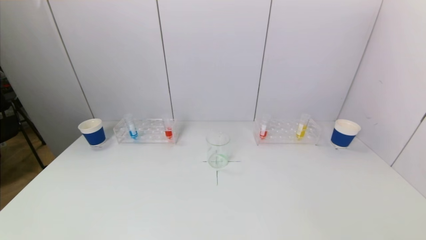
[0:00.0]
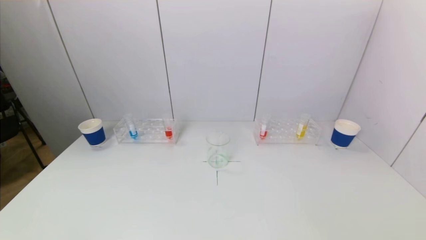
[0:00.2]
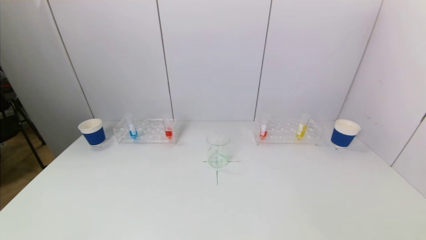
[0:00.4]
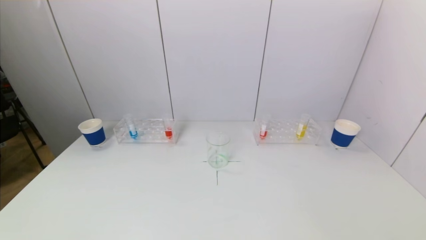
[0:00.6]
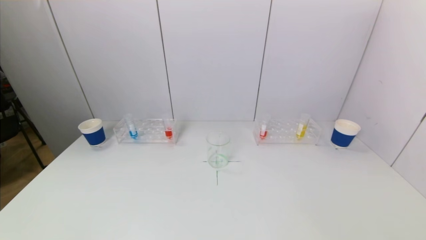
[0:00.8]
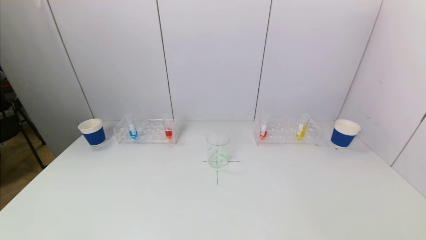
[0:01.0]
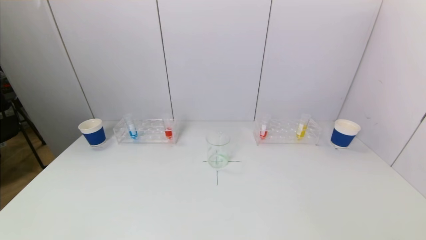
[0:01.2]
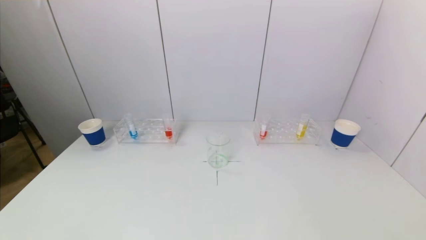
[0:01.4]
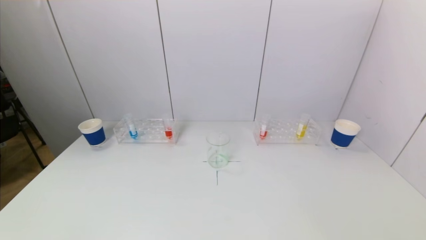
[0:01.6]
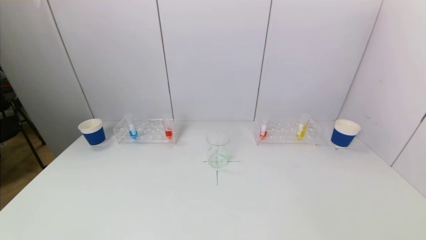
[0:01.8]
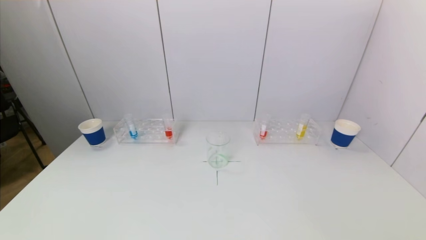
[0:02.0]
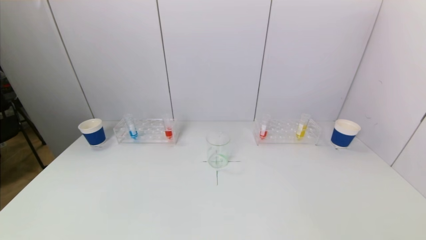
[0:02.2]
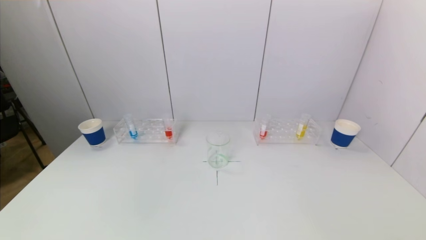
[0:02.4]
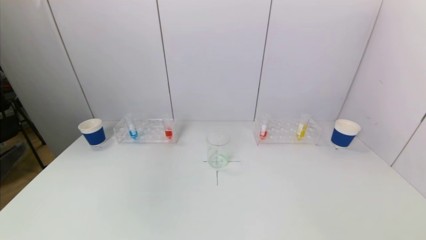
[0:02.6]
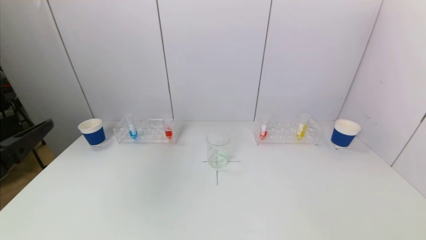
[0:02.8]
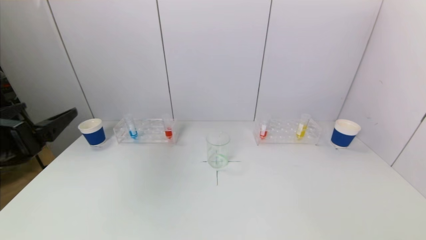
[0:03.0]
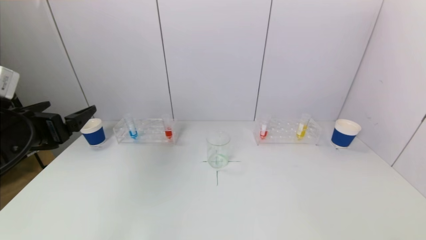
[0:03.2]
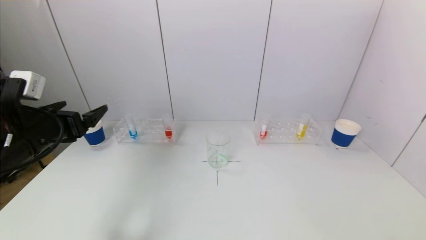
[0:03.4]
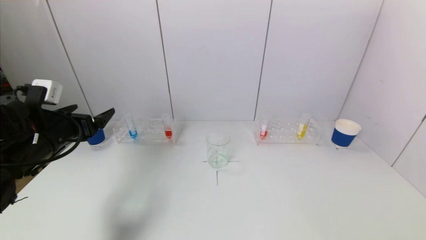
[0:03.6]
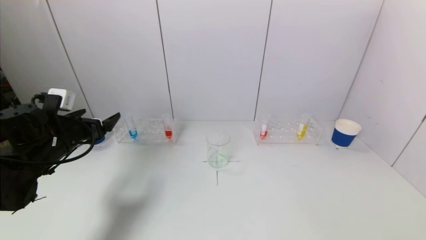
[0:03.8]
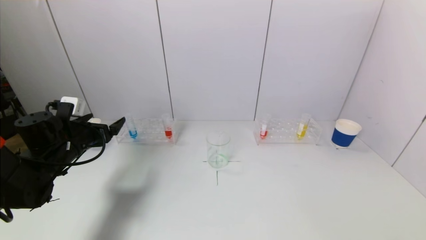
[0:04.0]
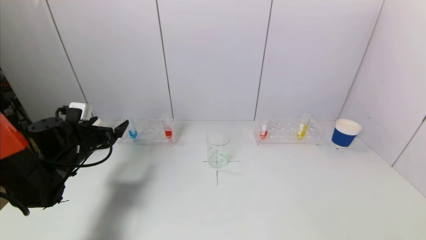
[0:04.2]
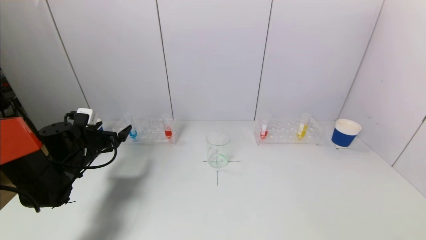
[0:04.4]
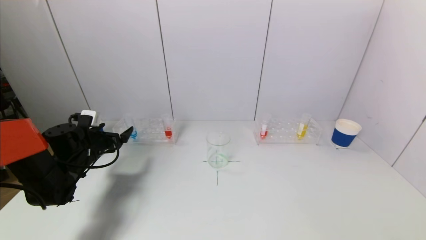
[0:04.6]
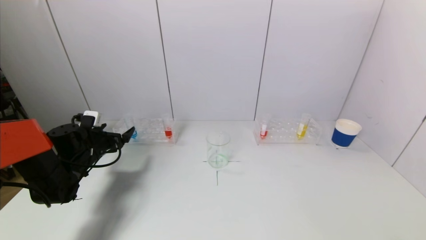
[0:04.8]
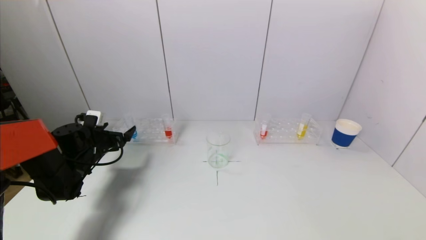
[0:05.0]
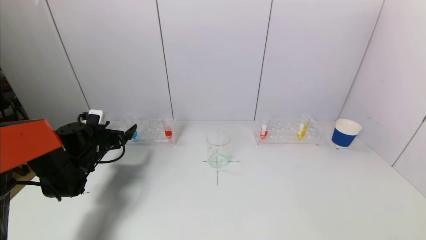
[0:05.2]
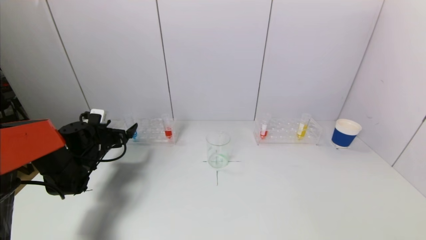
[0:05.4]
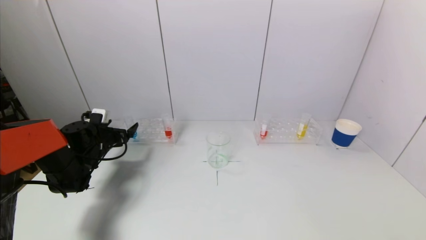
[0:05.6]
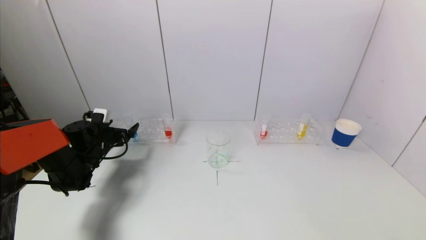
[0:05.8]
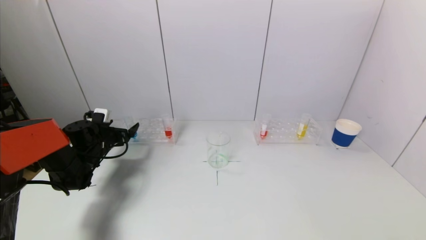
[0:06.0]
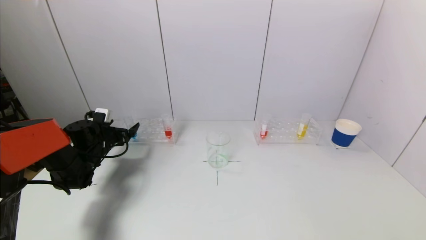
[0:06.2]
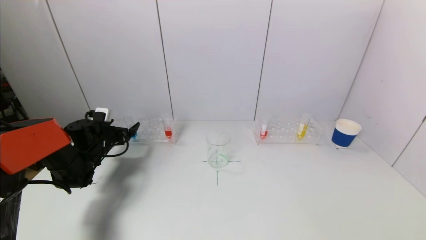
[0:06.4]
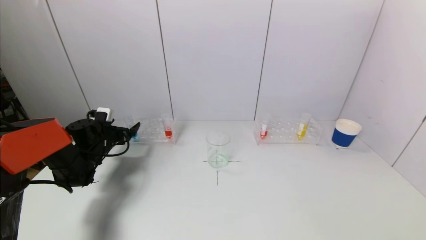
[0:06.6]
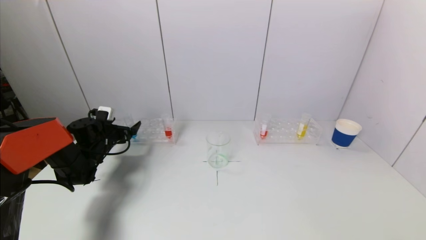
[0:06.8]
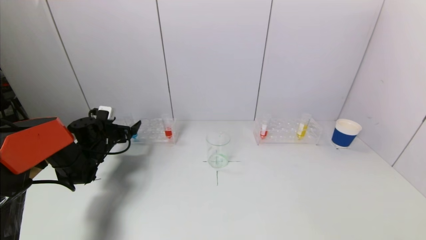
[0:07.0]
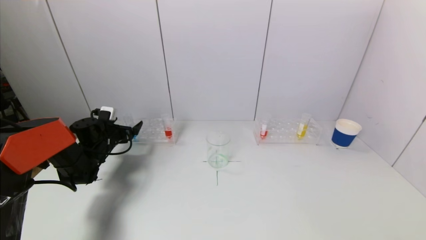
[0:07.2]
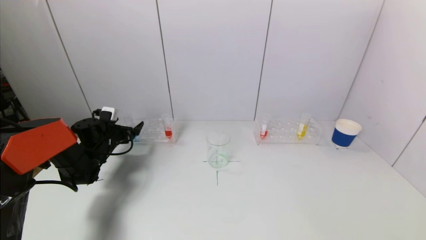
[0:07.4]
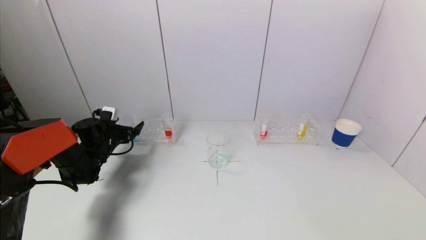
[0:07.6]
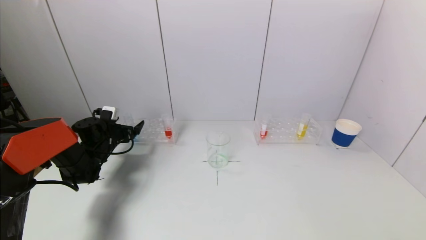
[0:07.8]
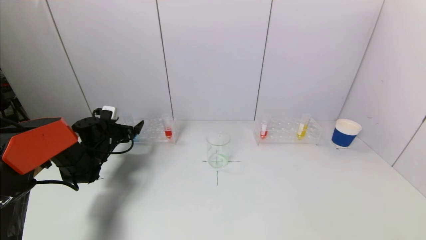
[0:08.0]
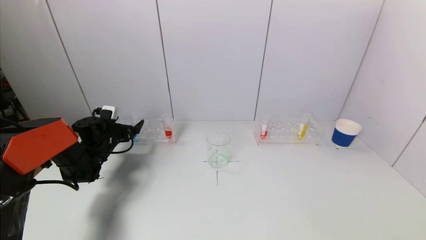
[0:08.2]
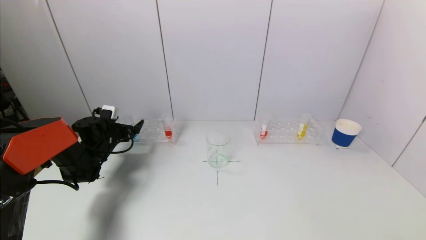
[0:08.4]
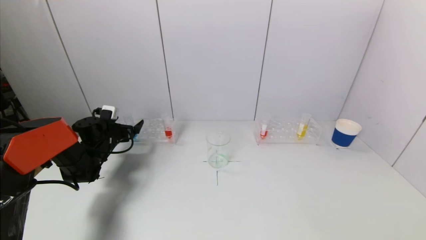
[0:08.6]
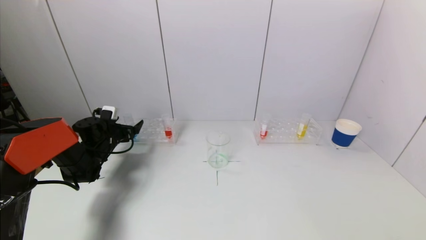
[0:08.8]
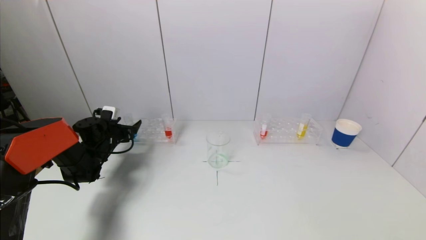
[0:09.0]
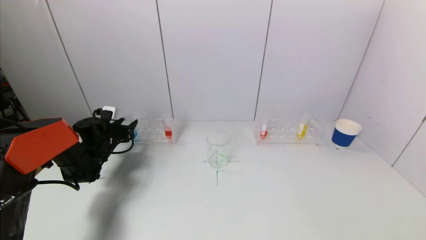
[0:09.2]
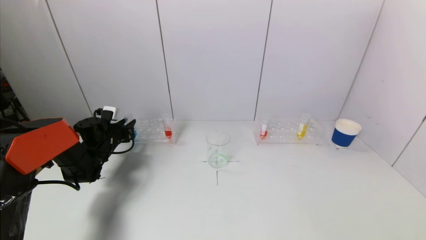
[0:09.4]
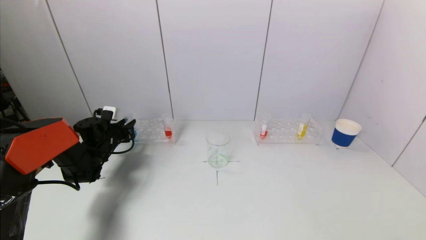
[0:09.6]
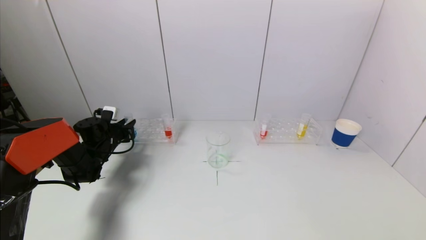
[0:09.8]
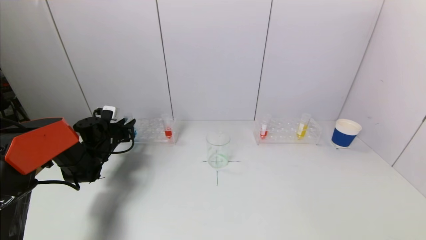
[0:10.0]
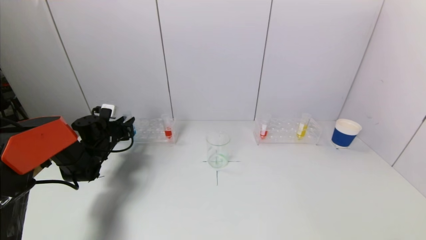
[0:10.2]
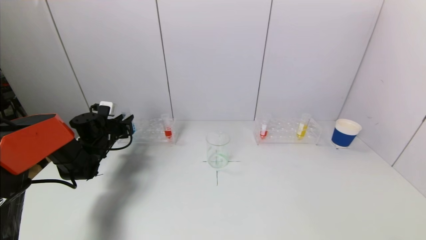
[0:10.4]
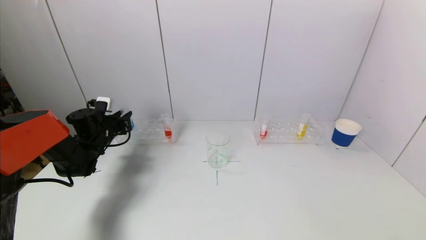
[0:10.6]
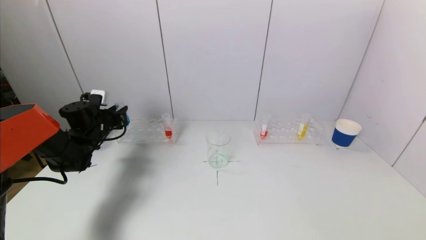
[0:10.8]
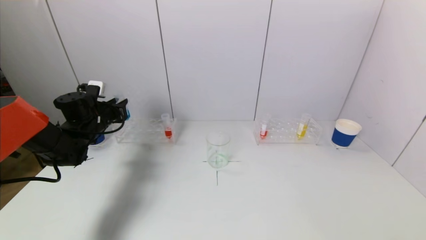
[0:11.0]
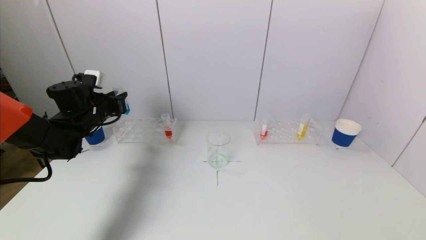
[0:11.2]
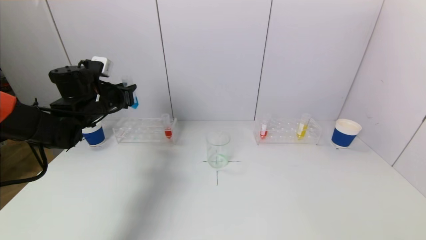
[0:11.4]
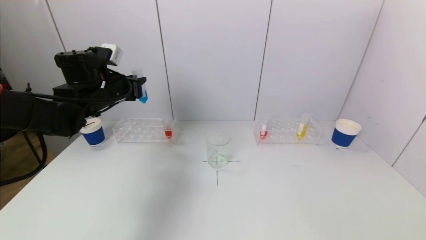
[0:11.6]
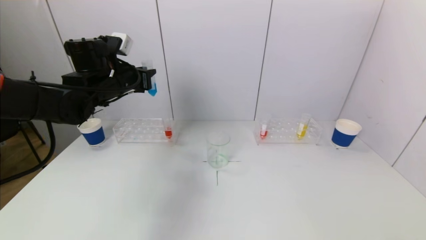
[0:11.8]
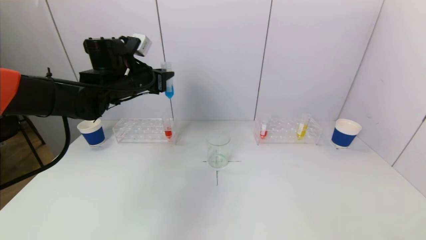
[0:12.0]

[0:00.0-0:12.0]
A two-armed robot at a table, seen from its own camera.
Task of the whole recording: pick up a test tube with pigment on left test tube rack and a test tube with pigment on right test tube rack by grippers and pour them into the beaker.
Step, 0:00.0 to 0:09.4: Grasp the blue reagent with the left gripper.
0:00.0 to 0:01.6: The two grippers keep their place.
0:01.6 to 0:03.0: The left gripper goes some 25 cm forward and upward.
0:03.0 to 0:04.4: The left gripper is displaced forward and downward by some 25 cm.
0:04.4 to 0:06.0: The left gripper is displaced forward by some 5 cm.
0:06.0 to 0:07.6: The grippers make only small movements.
0:07.6 to 0:09.0: Neither gripper changes place.
0:09.0 to 0:10.4: The left gripper closes its fingers.
0:10.4 to 0:12.0: The left gripper shifts about 25 cm upward and to the right.

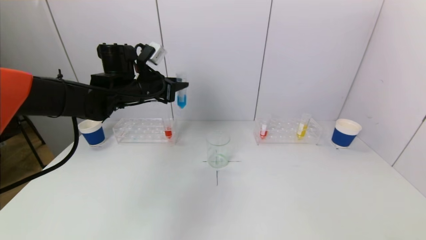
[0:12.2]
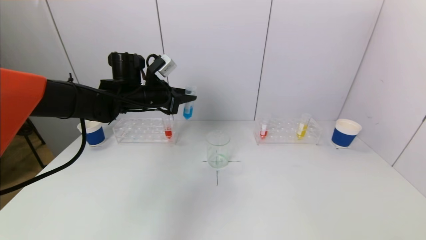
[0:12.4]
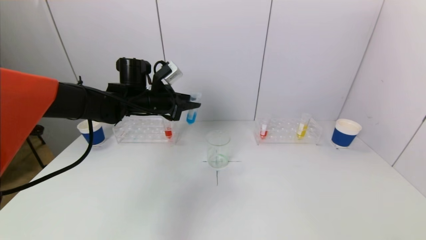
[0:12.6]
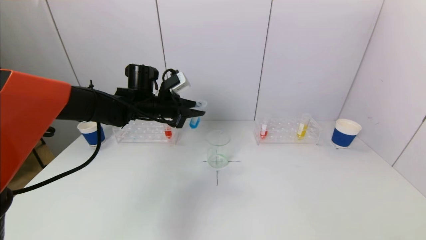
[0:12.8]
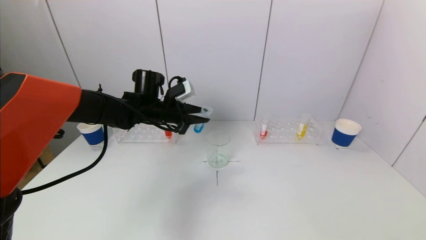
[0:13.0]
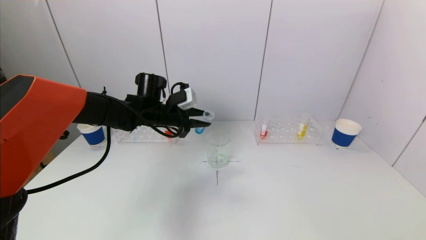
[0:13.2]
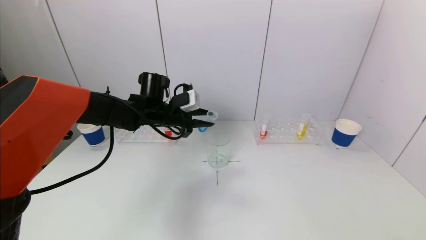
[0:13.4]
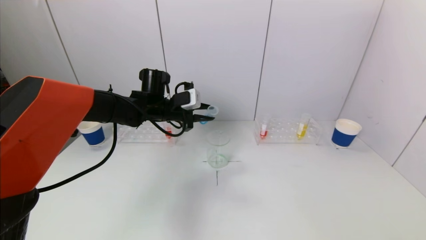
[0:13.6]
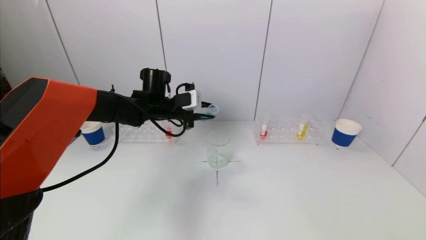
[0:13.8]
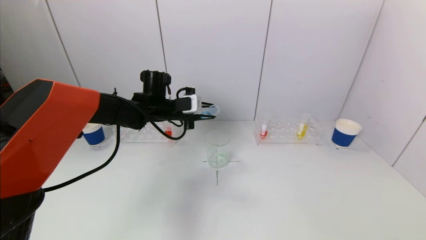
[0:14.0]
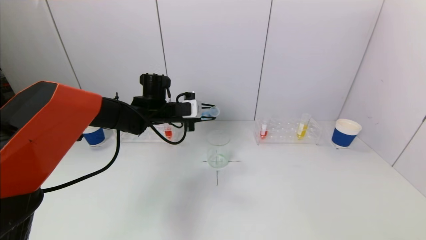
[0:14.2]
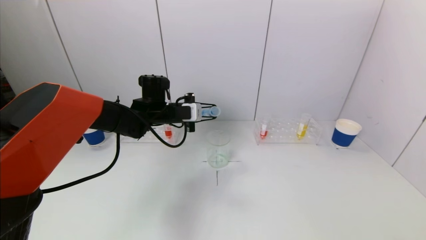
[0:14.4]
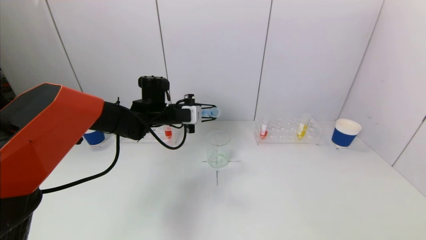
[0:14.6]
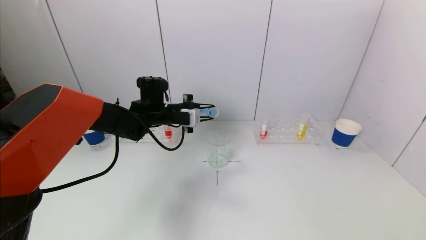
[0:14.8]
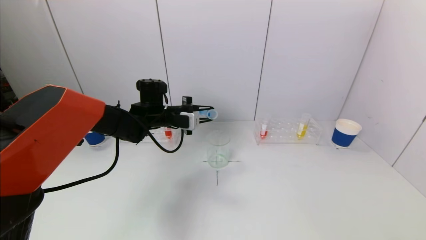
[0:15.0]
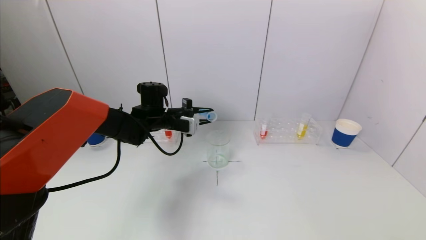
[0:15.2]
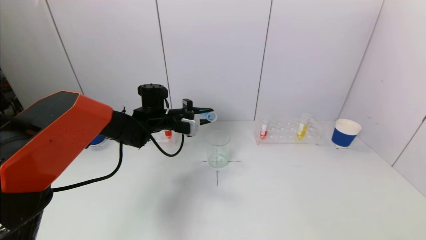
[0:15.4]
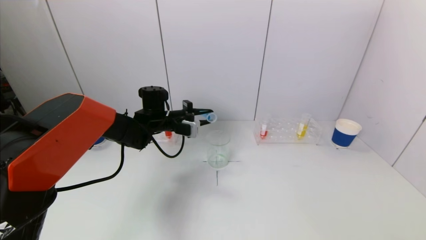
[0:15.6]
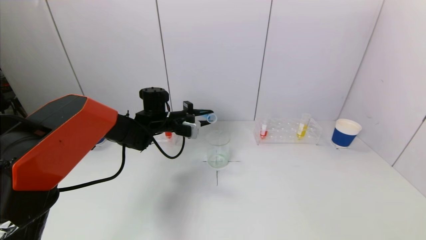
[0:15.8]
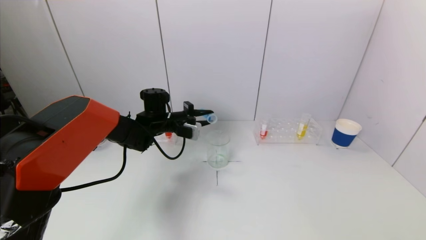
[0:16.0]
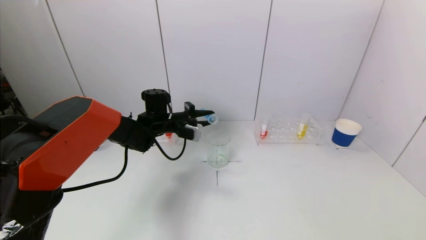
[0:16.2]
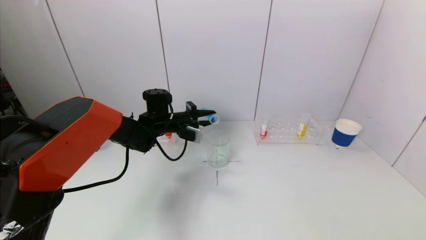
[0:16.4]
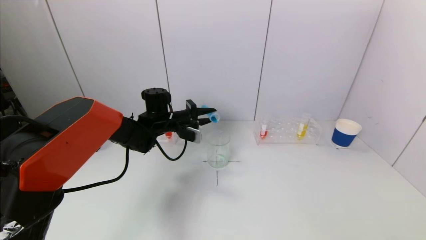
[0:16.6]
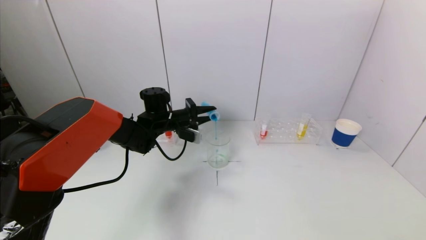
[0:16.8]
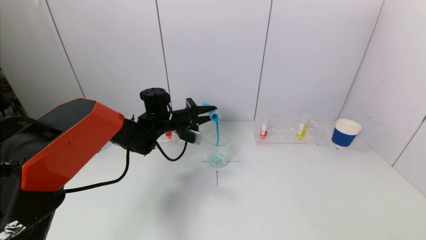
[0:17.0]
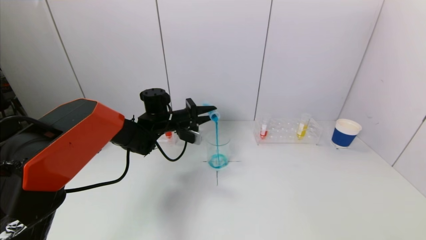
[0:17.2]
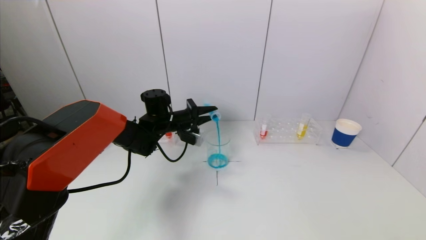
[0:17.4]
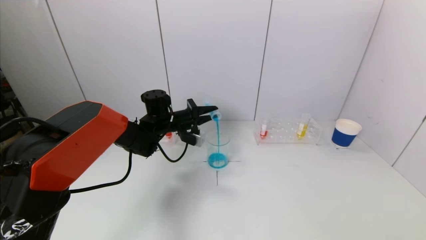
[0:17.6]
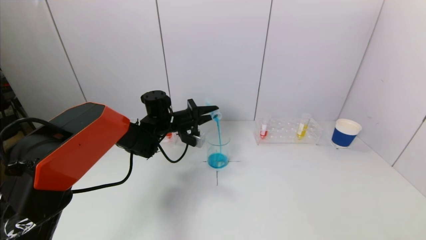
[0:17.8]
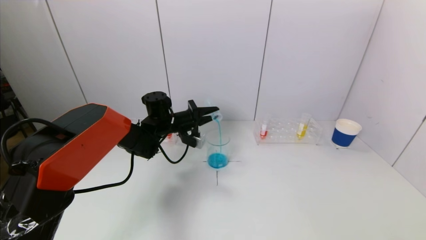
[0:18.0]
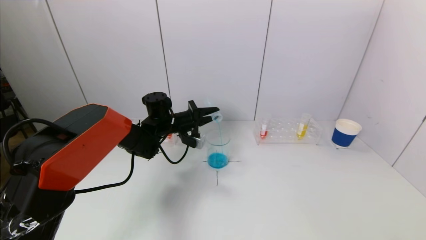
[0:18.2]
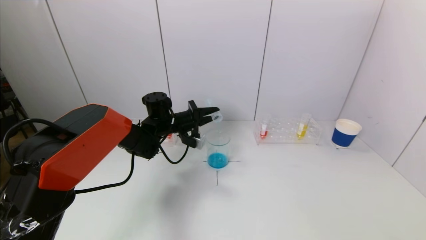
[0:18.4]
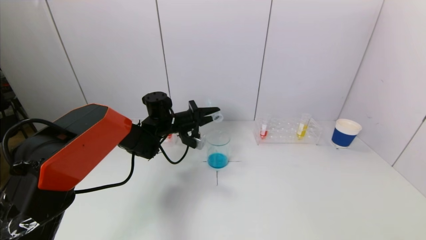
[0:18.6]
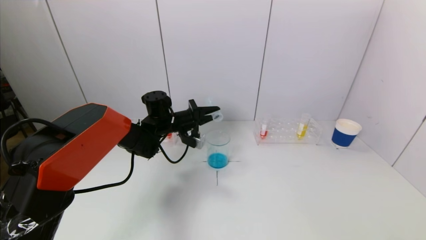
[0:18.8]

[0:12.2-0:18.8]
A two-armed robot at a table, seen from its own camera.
Task of the whole recording: pick up a test tube with pigment on left test tube rack and a test tube with pigment on right test tube rack by grippers and pour them into the beaker.
0:12.2 to 0:13.8: The left gripper is displaced downward and to the right by some 10 cm.
0:15.4 to 0:17.2: The grippers move only a little.
0:17.2 to 0:18.8: There are only small adjustments of the grippers.
